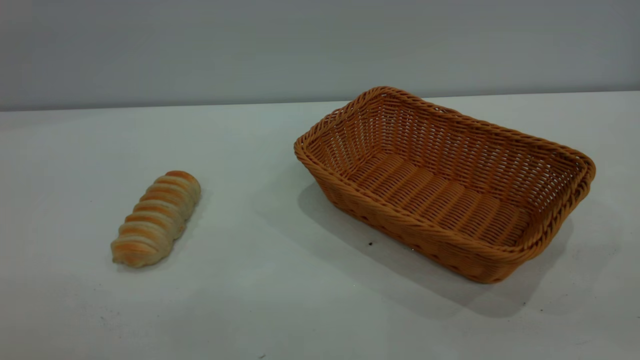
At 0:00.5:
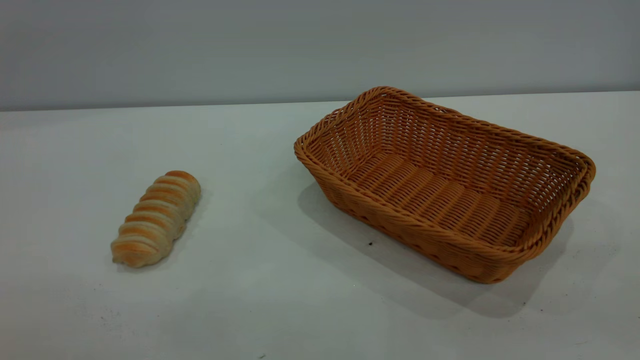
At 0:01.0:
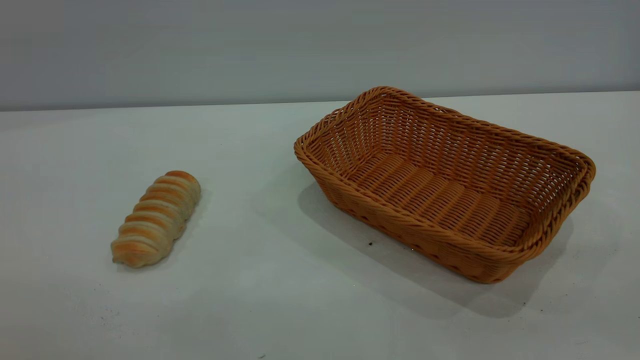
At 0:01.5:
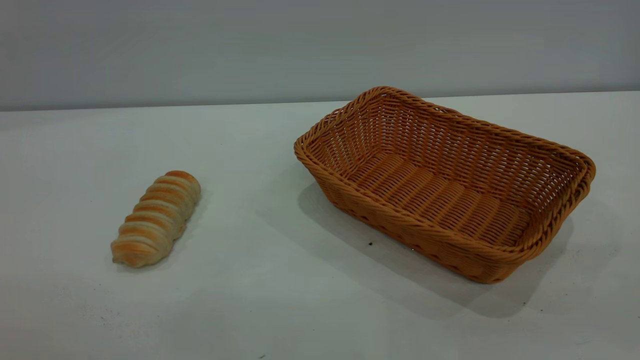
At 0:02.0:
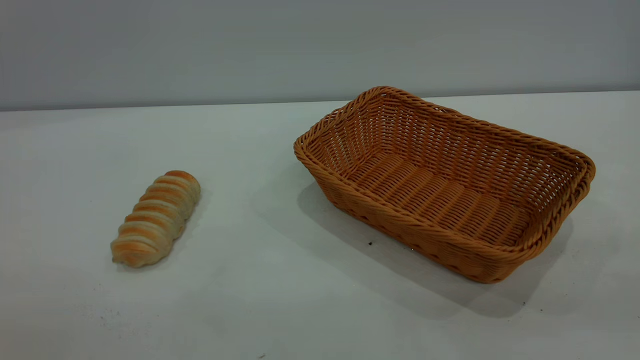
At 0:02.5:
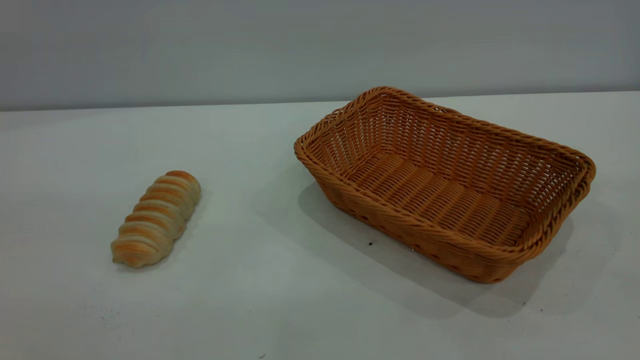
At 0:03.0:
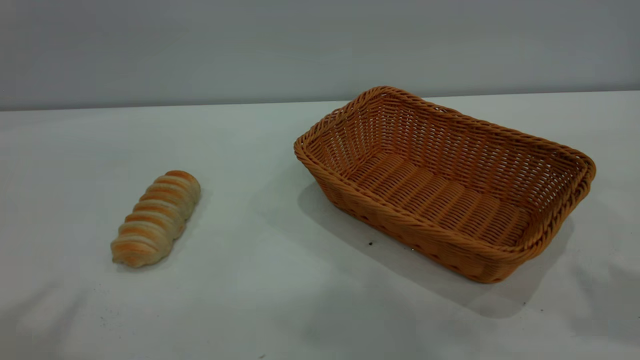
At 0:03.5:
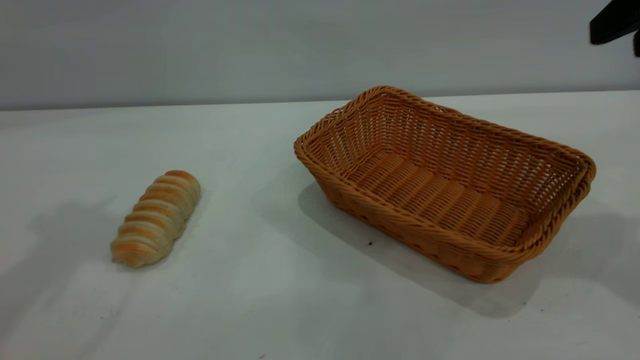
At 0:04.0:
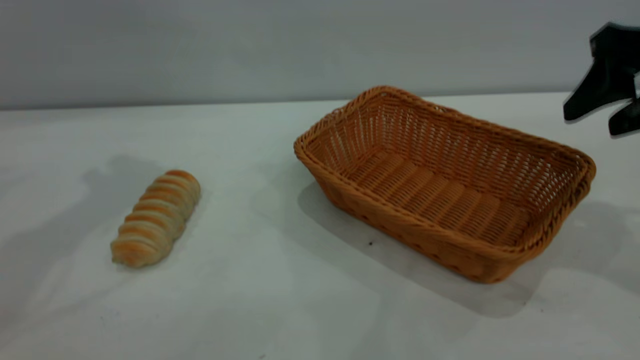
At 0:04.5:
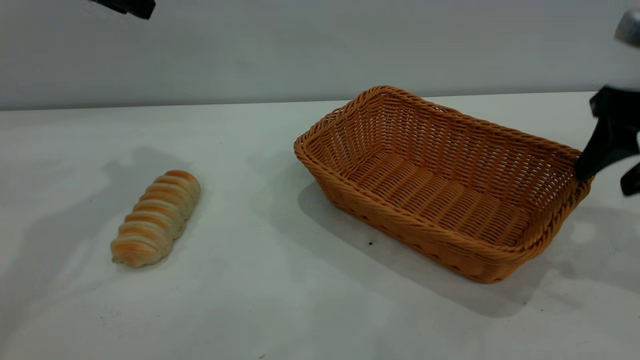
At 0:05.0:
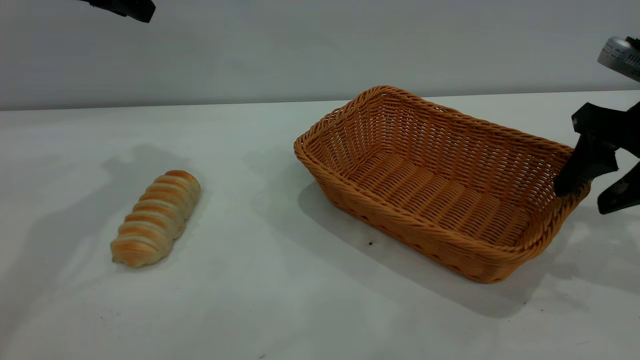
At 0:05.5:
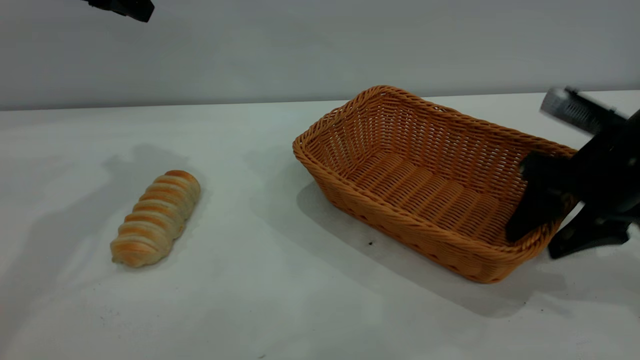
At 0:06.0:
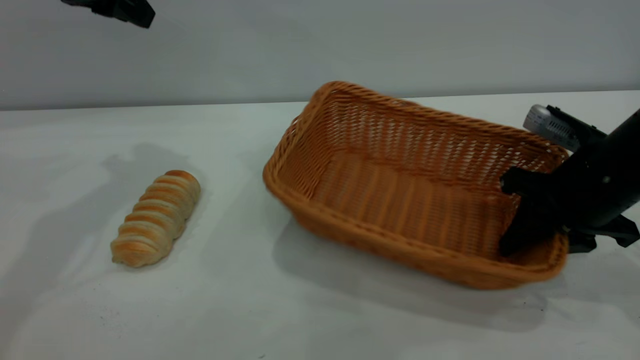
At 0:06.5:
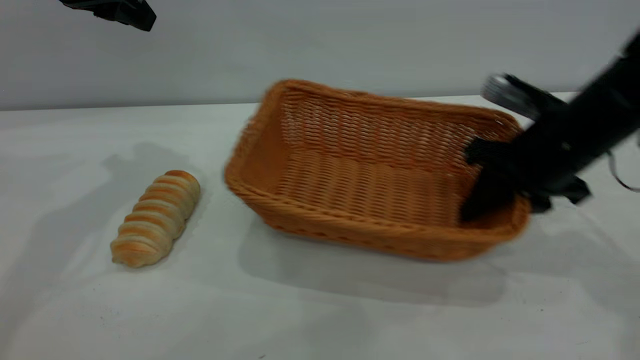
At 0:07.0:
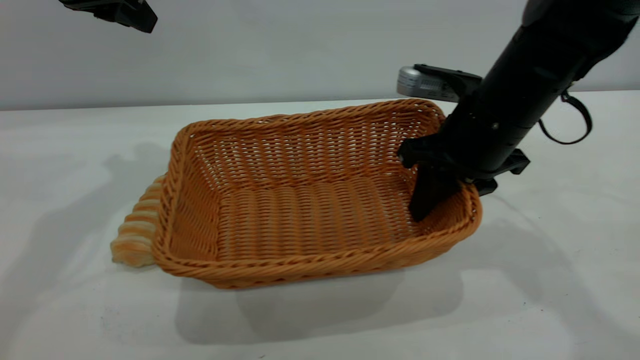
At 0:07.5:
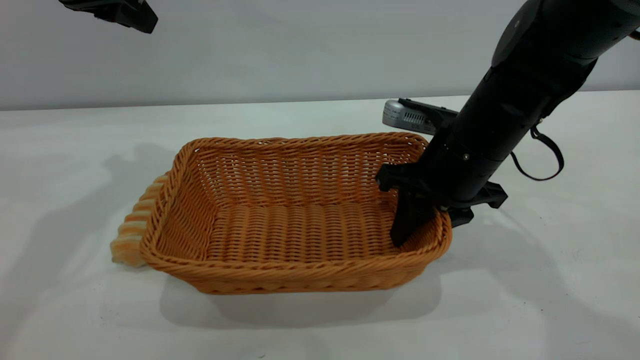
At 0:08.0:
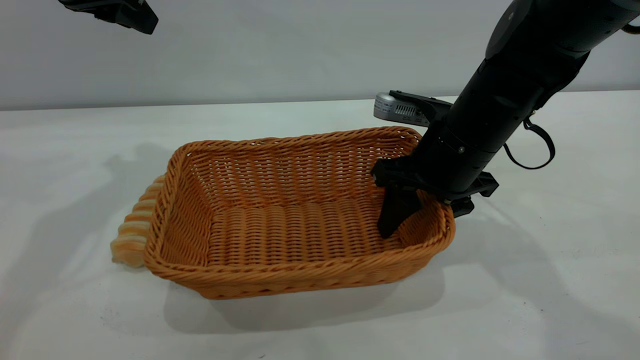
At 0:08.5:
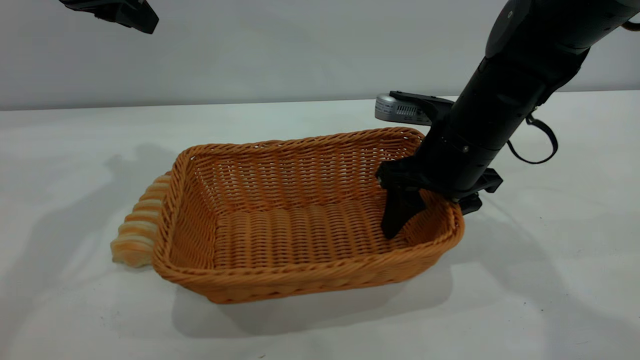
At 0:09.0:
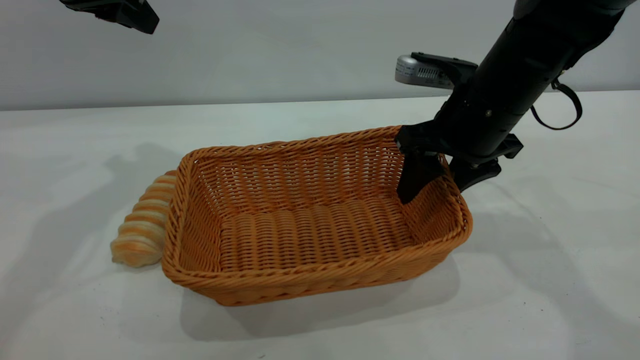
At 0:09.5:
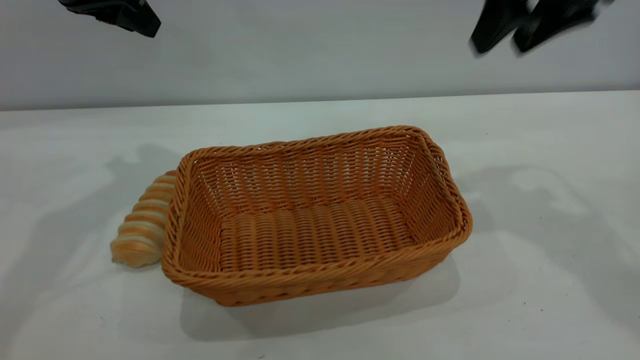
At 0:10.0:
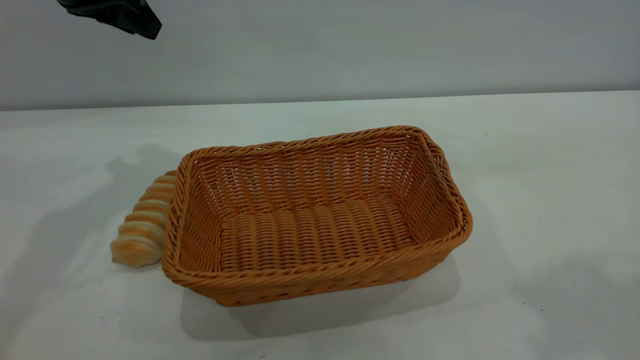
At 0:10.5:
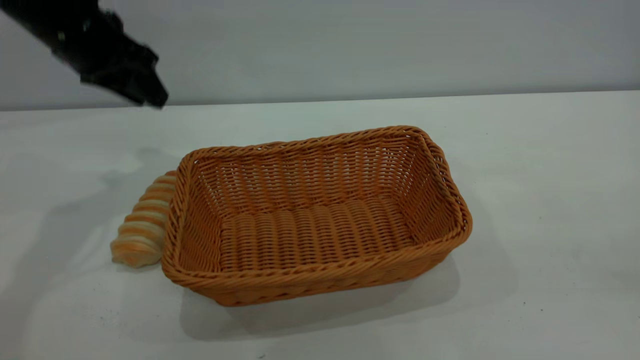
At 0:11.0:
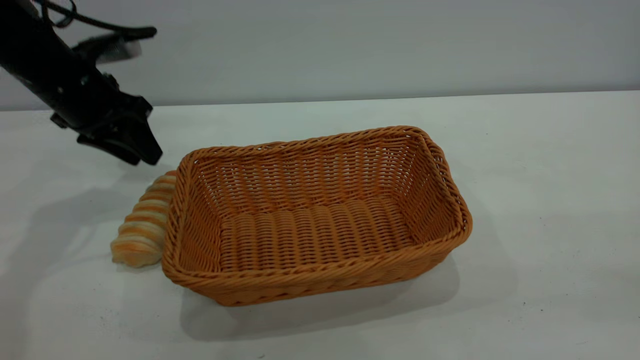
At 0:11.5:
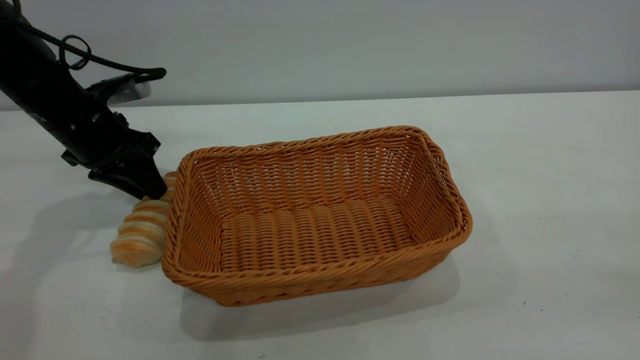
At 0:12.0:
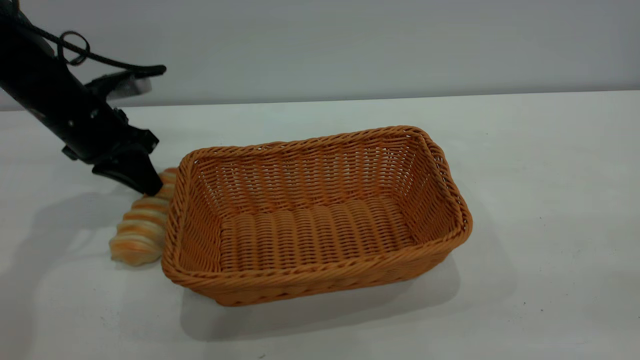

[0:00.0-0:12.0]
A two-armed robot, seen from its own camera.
Task of the whole recording: One hand grasps the yellow basket and places it in the middle of the table, while the other hand picks up the long bread and puts it into the yellow basket.
Step, 0:00.0 to 0:09.0: Move the basket to the center of view.
0:02.0 to 0:04.0: The right gripper moves forward, about 30 cm, and opens up.
0:04.0 to 0:06.0: The left gripper travels downward by roughly 5 cm, while the right gripper is displaced downward by approximately 10 cm, and closes its fingers.
0:06.0 to 0:08.0: The right gripper moves to the left and forward, some 15 cm, and opens up.
0:08.0 to 0:10.0: The right gripper shifts some 35 cm upward, backward and to the right.
0:10.0 to 0:12.0: The left gripper goes about 15 cm downward, and closes.

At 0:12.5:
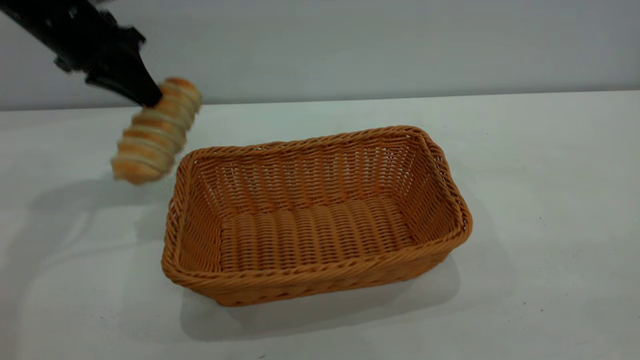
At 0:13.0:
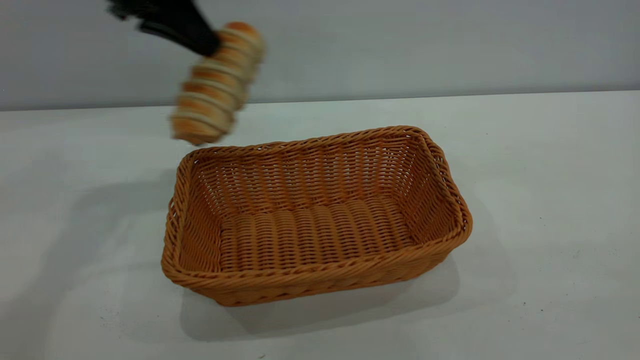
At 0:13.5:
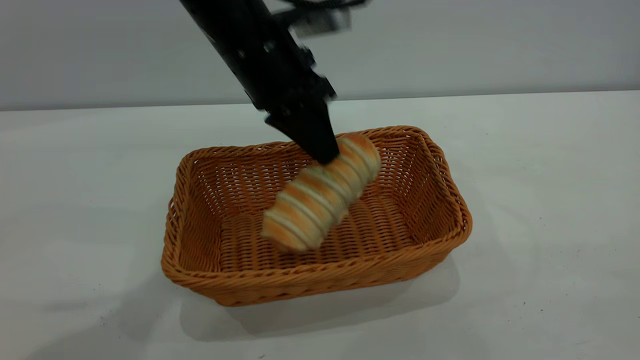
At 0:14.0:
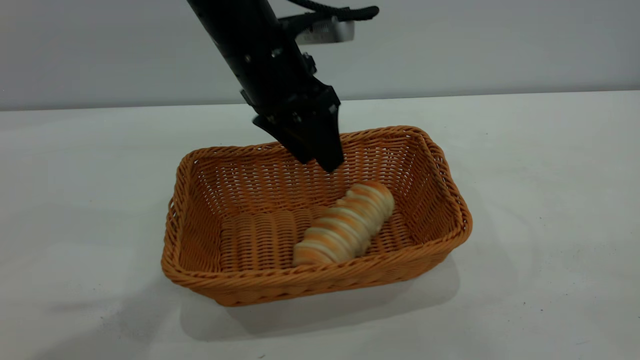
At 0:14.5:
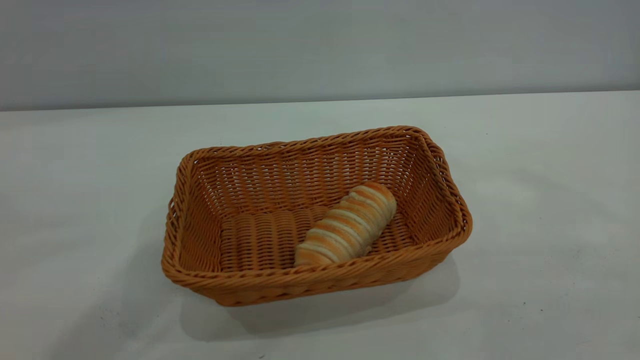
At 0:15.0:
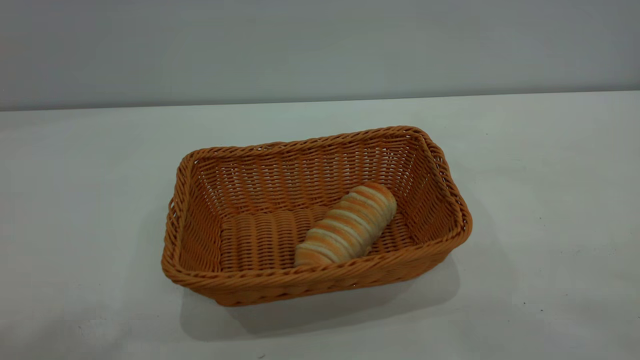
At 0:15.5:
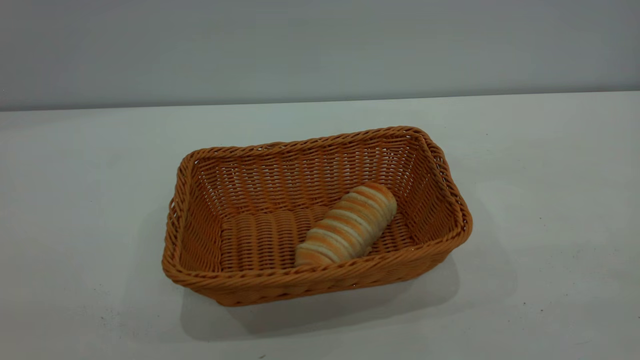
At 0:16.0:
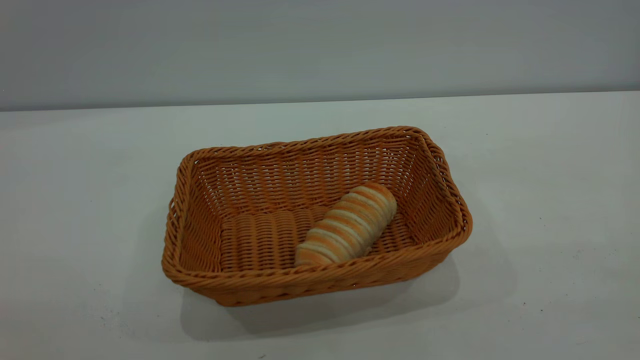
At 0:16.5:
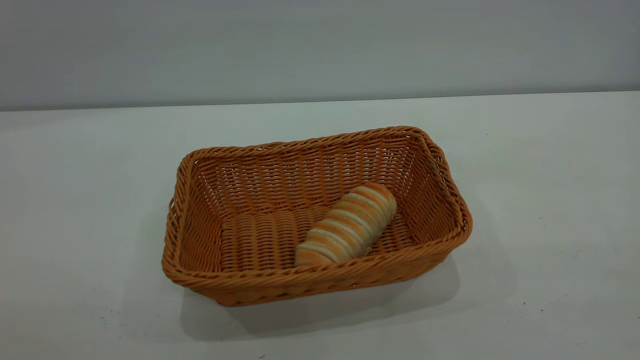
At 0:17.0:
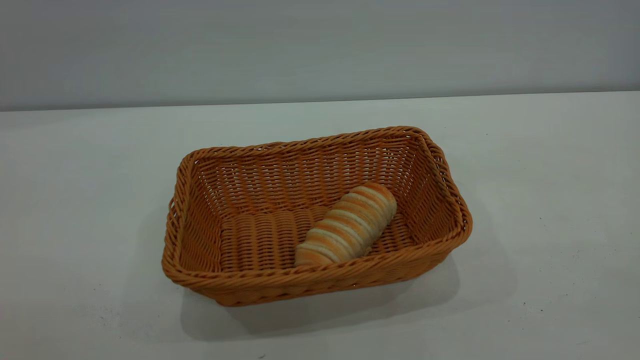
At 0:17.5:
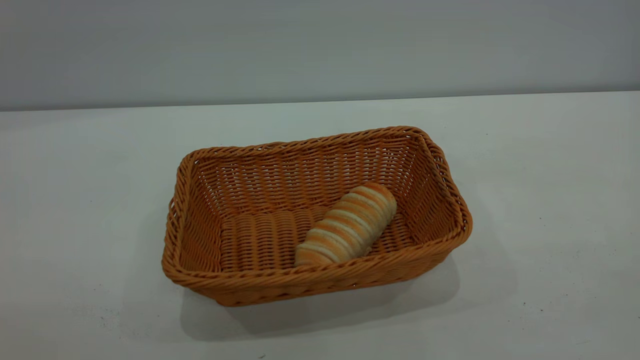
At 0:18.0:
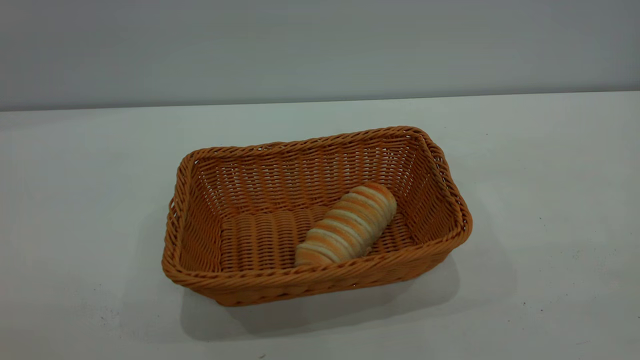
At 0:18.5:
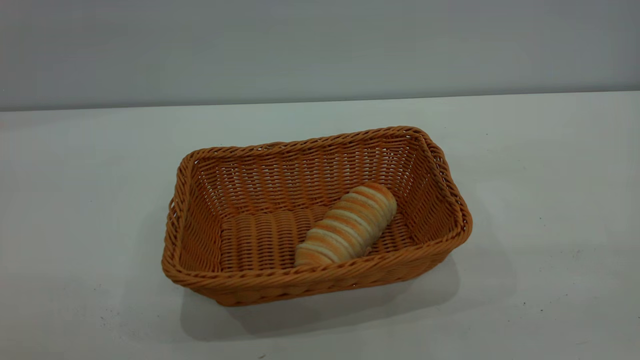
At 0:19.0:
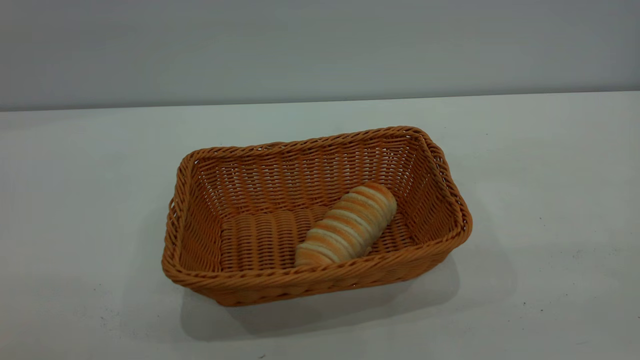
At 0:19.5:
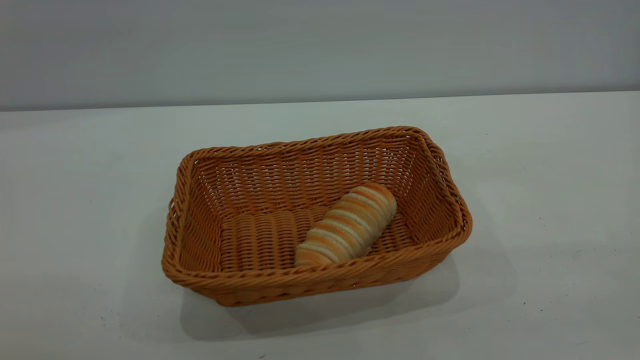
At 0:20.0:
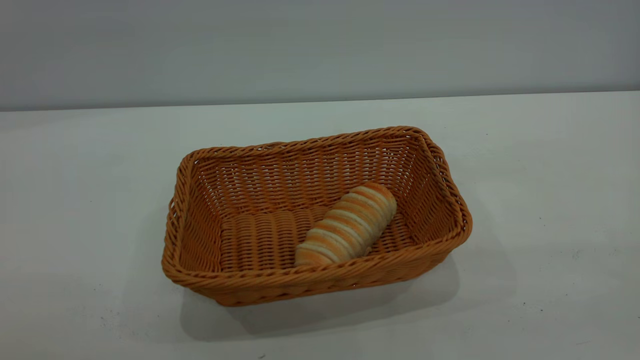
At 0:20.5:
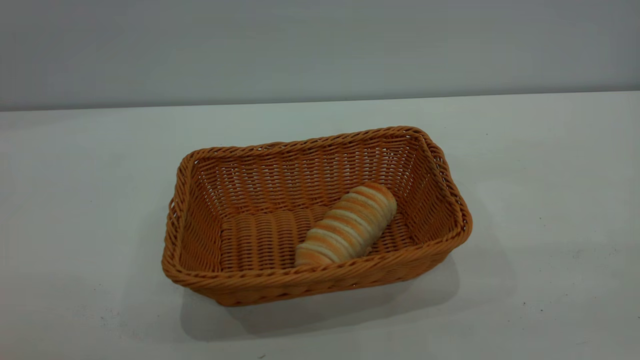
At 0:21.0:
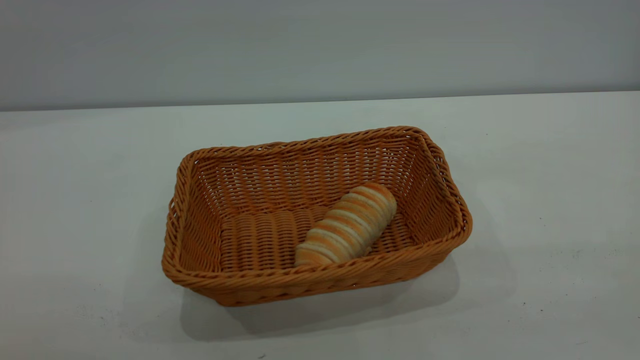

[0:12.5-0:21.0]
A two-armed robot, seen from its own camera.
Task of the whole recording: One hand grasps the yellow basket and places it in the middle of the table, while the other hand picks up the long bread and puts it into the yellow basket.
Step, 0:13.0 to 0:14.0: place the bread into the basket.
0:12.5 to 0:14.5: The left gripper goes up and down, about 25 cm each way, reversing 2 times, and opens its fingers.
0:19.0 to 0:21.0: Both grippers stay about where they are.
